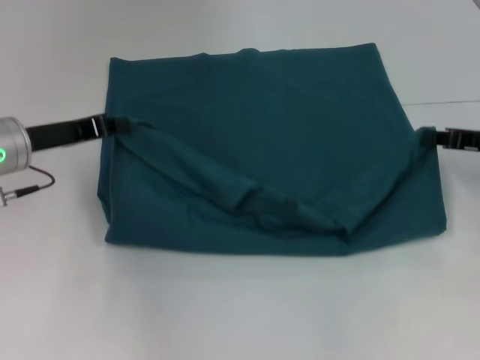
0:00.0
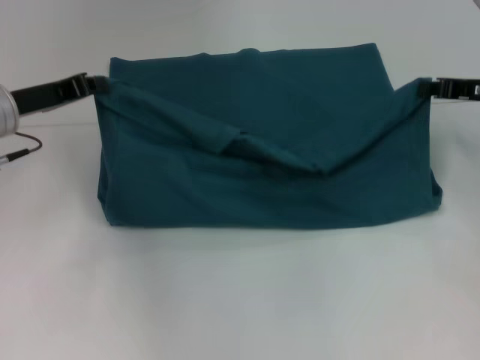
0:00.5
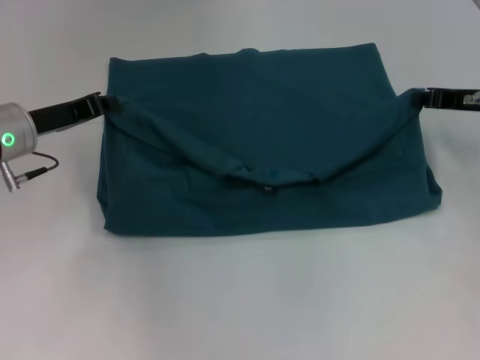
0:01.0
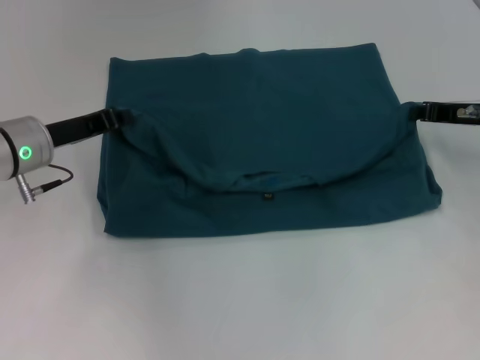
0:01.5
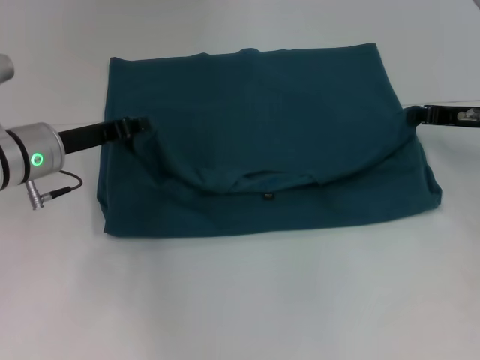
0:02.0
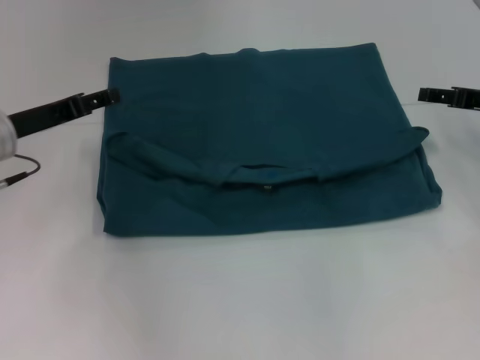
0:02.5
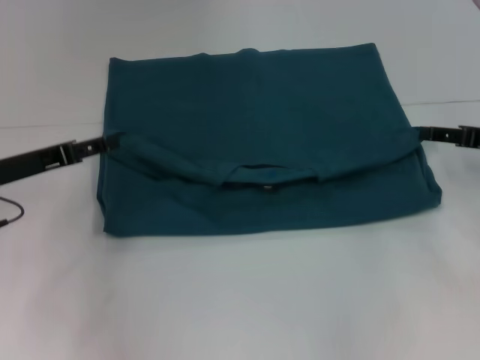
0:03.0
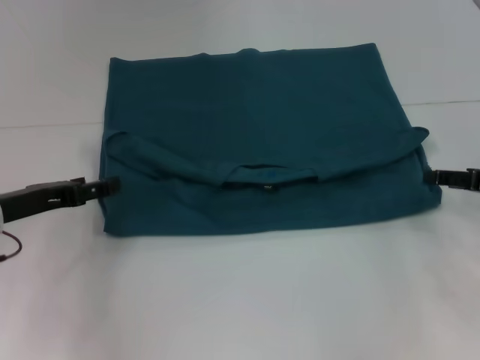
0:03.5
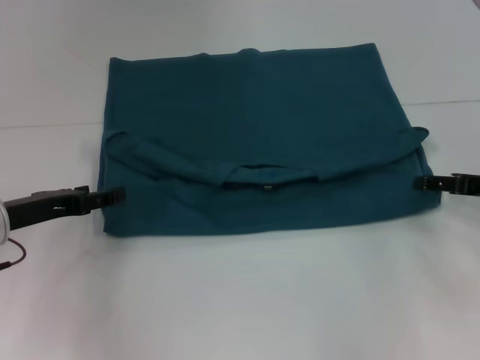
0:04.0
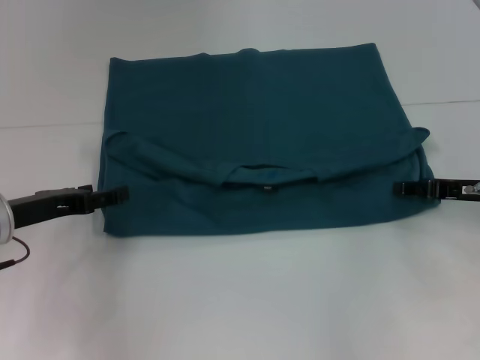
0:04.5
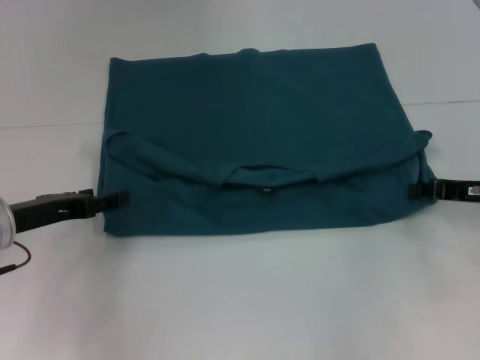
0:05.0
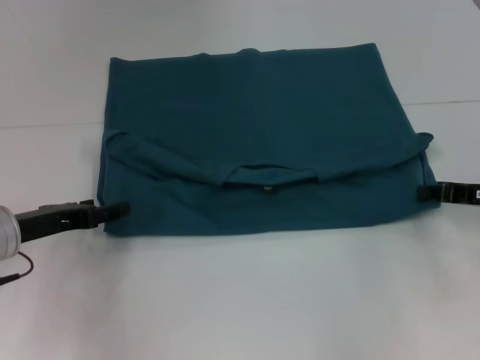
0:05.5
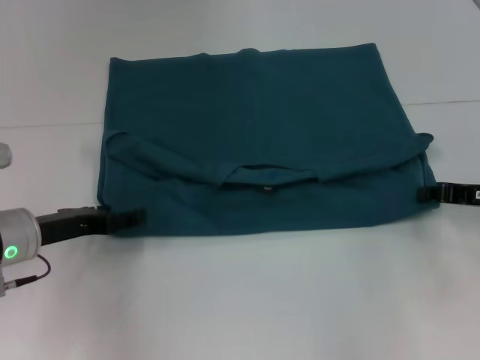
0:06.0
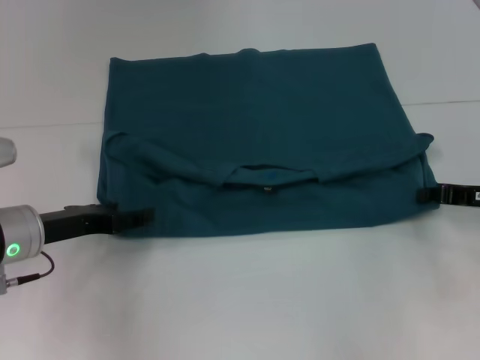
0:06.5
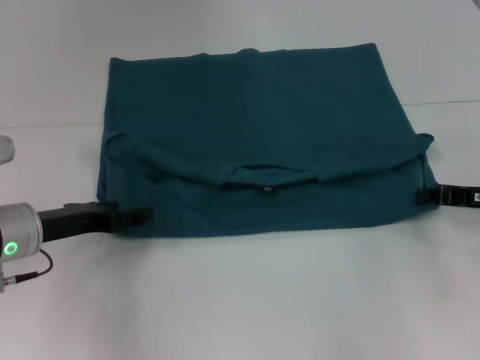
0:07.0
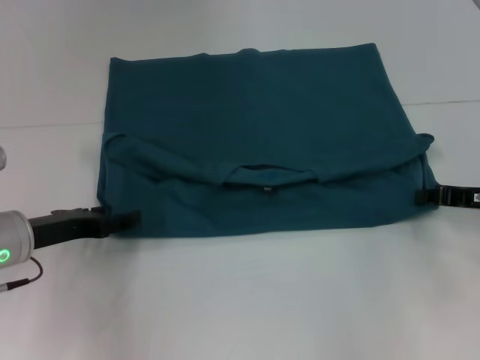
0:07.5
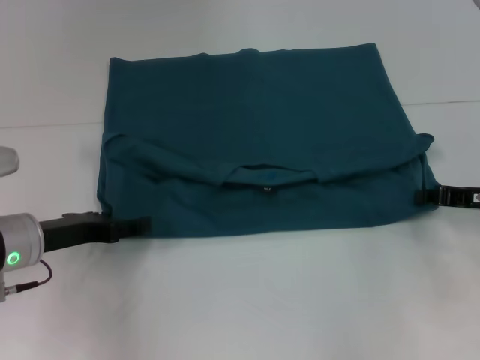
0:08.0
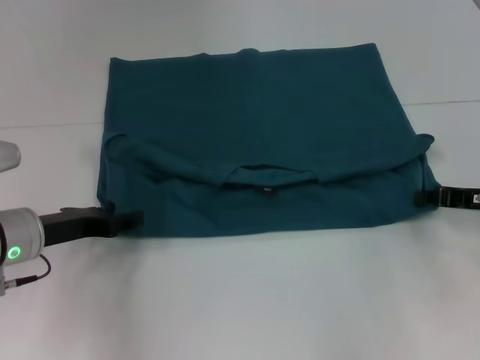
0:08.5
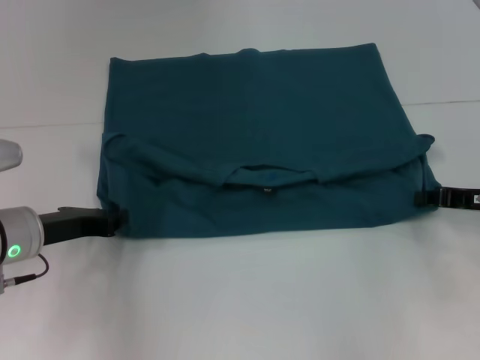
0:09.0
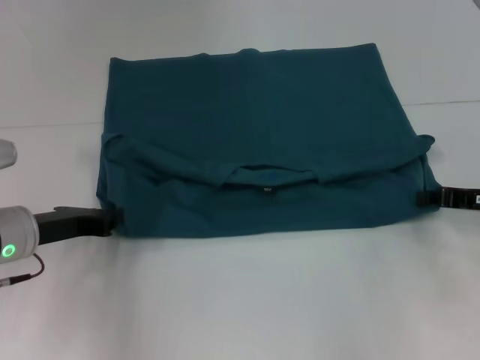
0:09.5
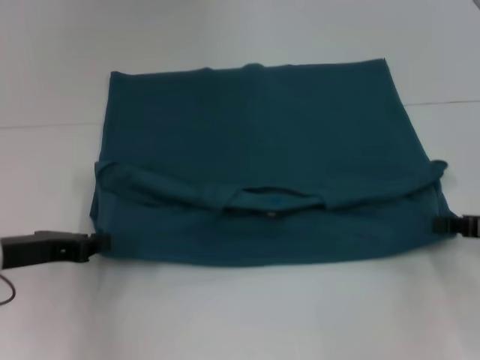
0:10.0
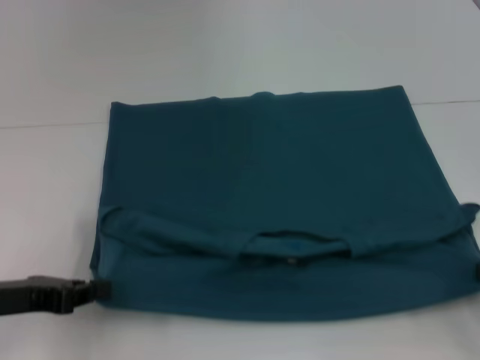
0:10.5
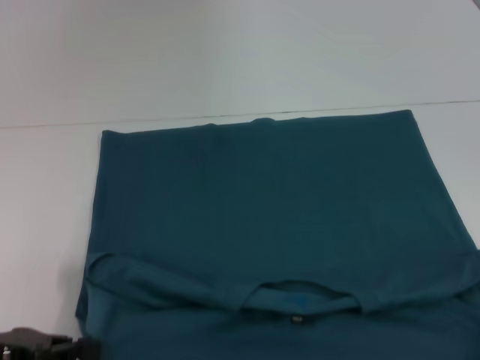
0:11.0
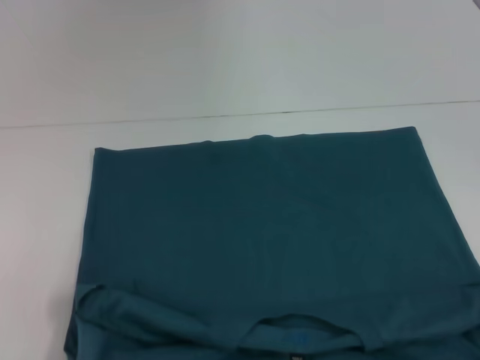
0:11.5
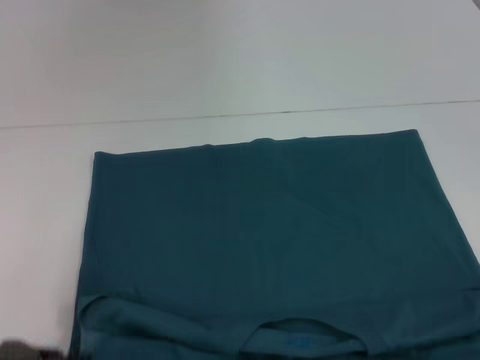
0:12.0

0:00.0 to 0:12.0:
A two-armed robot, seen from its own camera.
Step, 0:00.0 to 0:02.0: Fold the clothes to the left.
Step, 0:00.0 to 0:02.0: Fold the clothes to the right.
Step, 0:02.5 to 0:11.5: Pull the clothes with your left hand.
Step, 0:02.5 to 0:11.5: Pull the clothes with your right hand.
0:00.0 to 0:02.0: There are only small adjustments of the grippers.
0:02.0 to 0:04.0: The left gripper is displaced backward and to the left by approximately 10 cm, and opens its fingers, while the right gripper goes about 10 cm backward, and opens up.
0:04.0 to 0:06.0: The right gripper closes up.
0:06.0 to 0:08.0: Neither gripper changes place.
0:08.0 to 0:10.0: The left gripper closes its fingers.
0:10.0 to 0:12.0: The right gripper travels backward by about 15 cm. The left gripper travels backward by some 10 cm.

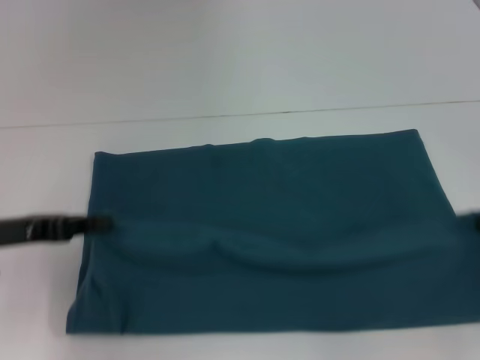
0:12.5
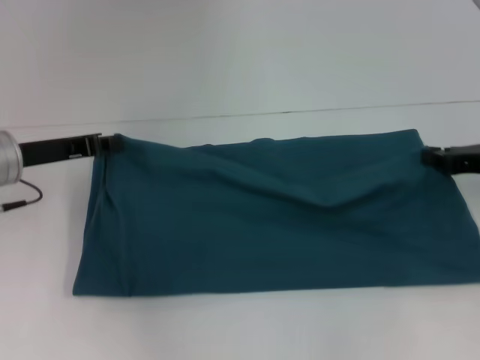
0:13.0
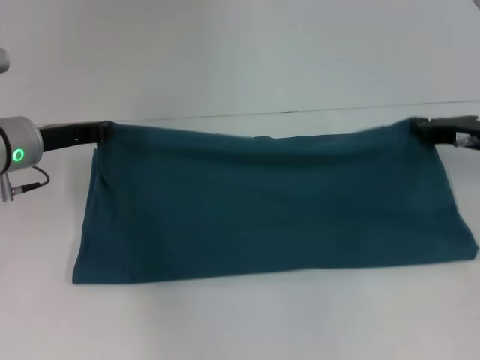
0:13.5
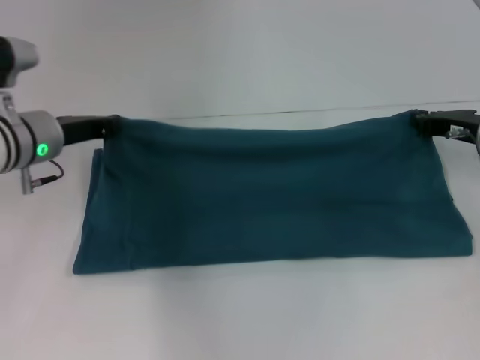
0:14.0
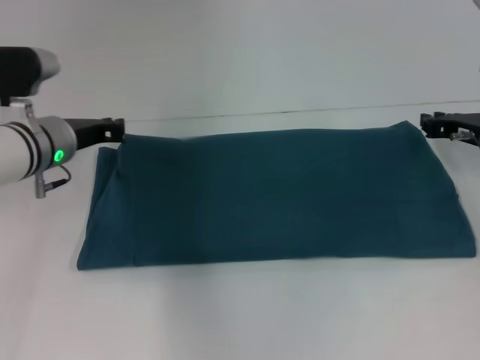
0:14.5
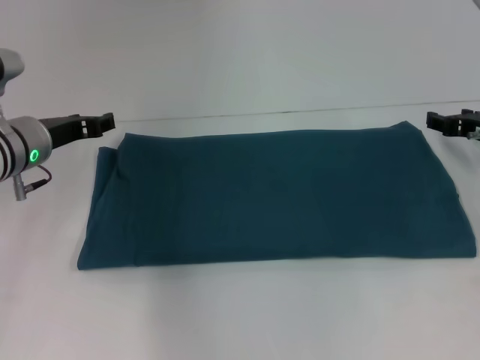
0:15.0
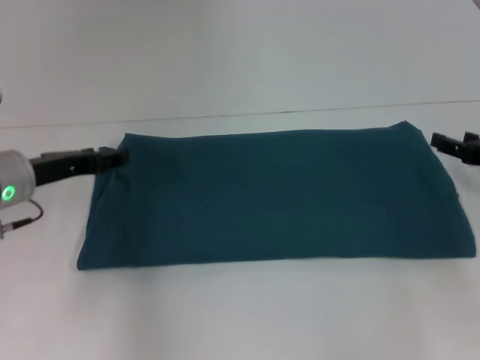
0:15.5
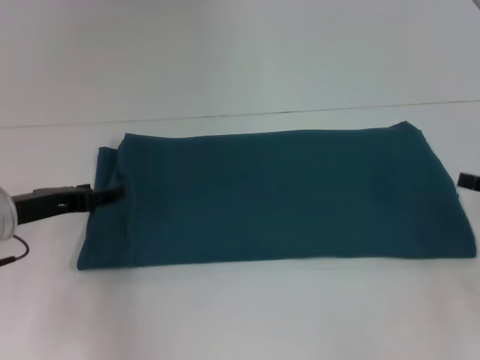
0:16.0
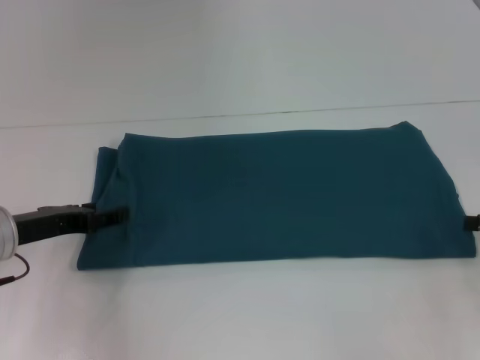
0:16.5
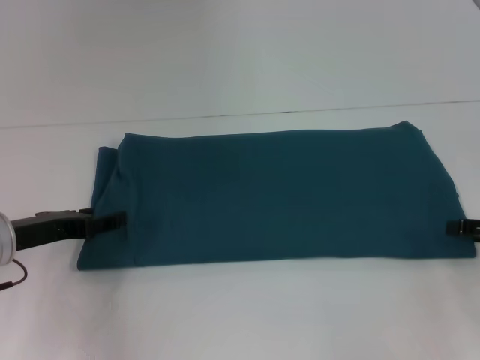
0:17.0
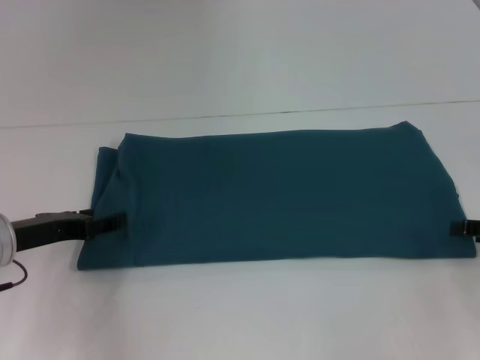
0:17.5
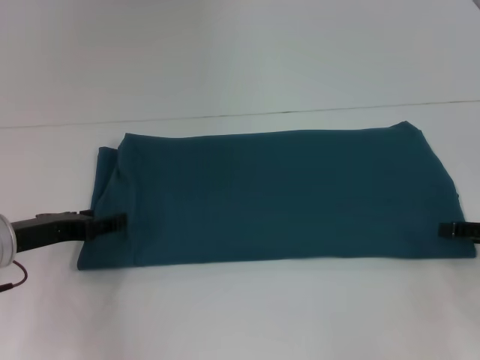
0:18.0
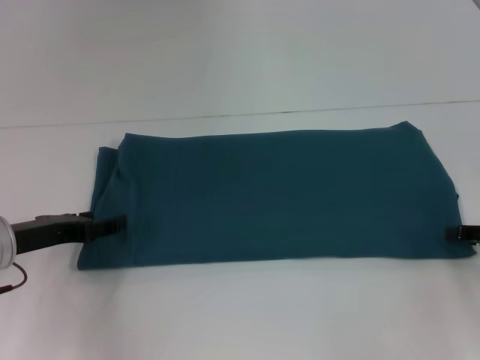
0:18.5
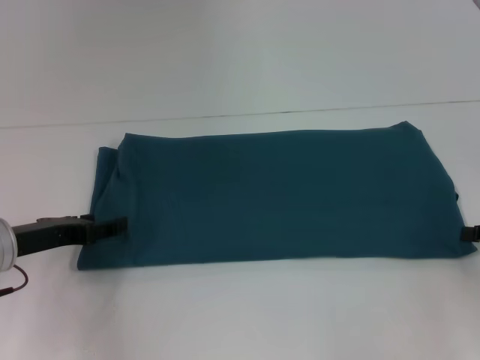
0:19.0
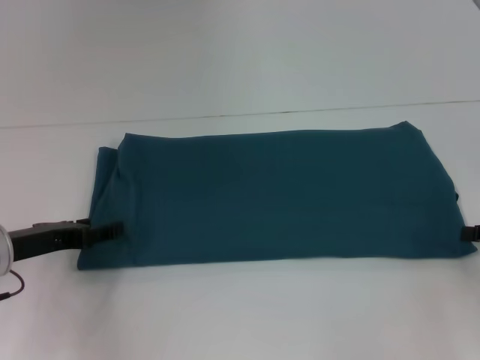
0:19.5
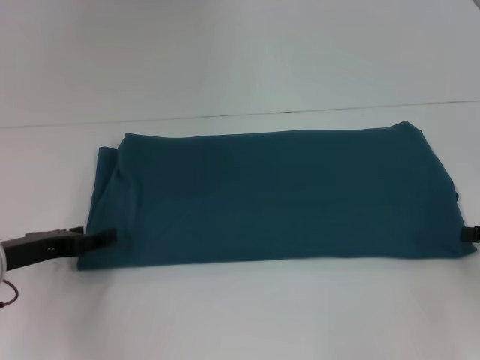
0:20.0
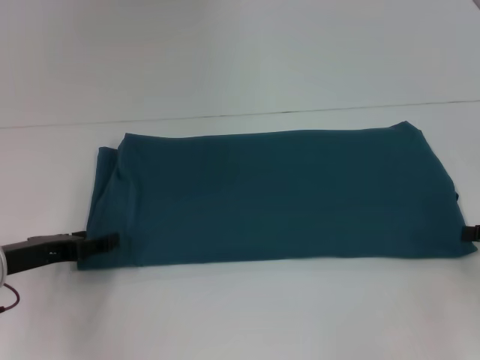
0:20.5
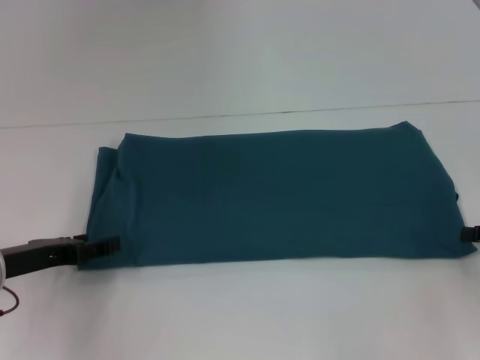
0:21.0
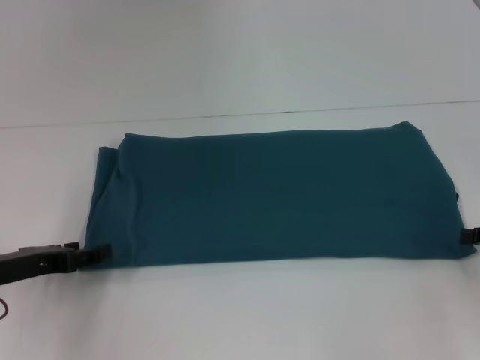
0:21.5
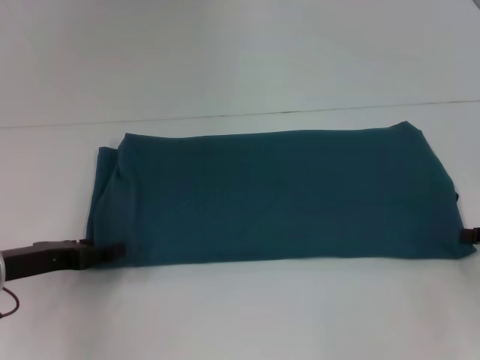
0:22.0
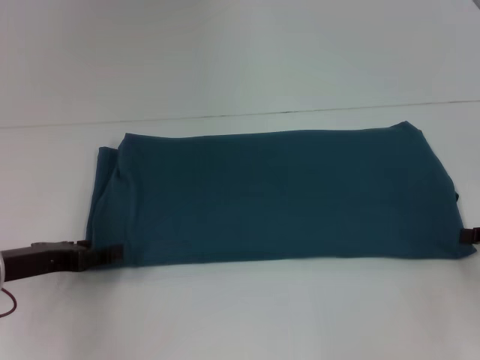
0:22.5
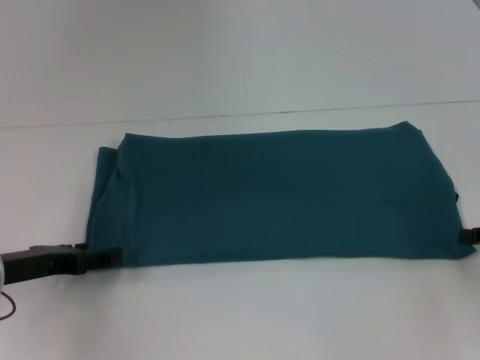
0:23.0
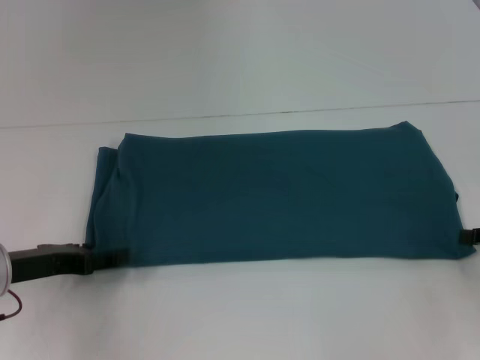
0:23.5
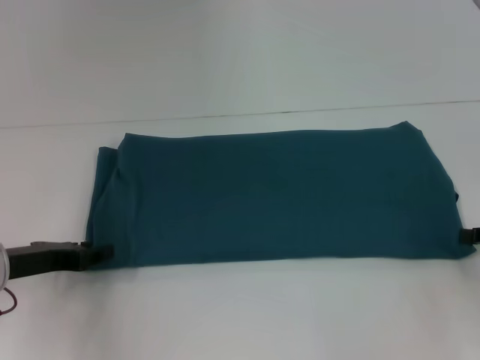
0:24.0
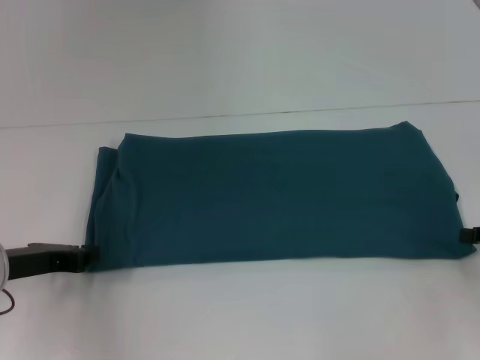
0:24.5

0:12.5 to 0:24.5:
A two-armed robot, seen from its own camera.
Step, 0:12.5 to 0:14.5: Fold the clothes to the right.
0:12.5 to 0:14.5: The left gripper shifts about 15 cm forward and to the right, while the right gripper travels forward and to the left by about 15 cm.
0:14.5 to 0:16.5: The left gripper is displaced backward and to the left by roughly 10 cm, and opens. Meanwhile the right gripper heads backward and to the right, covering roughly 15 cm, and opens up.
0:16.5 to 0:18.5: The grippers move only a little.
0:20.5 to 0:22.5: The grippers make only small movements.

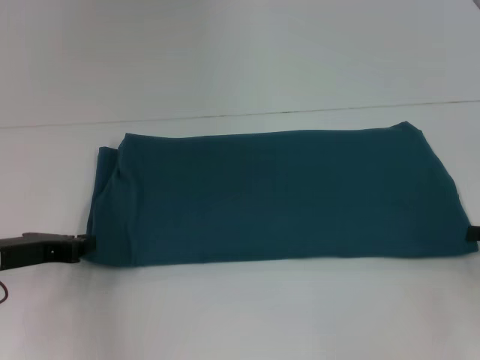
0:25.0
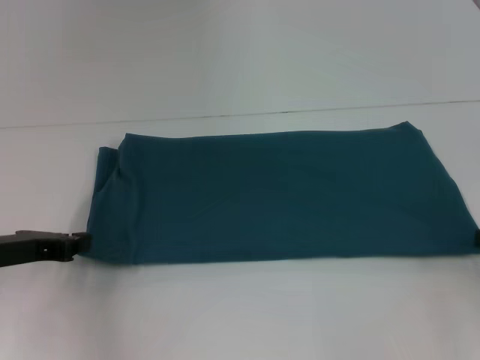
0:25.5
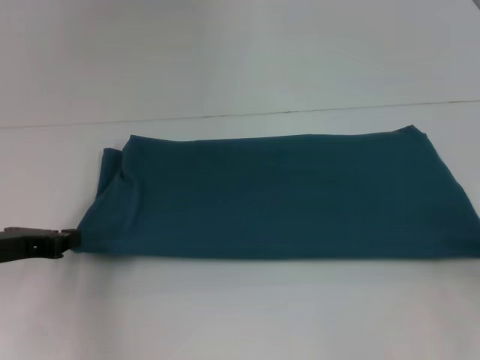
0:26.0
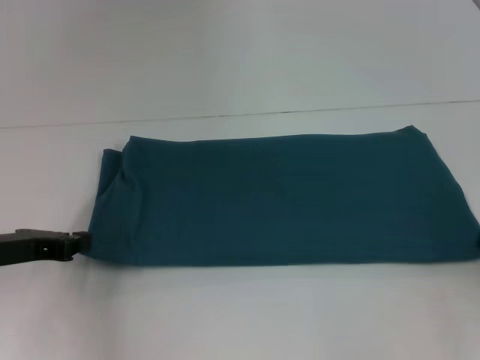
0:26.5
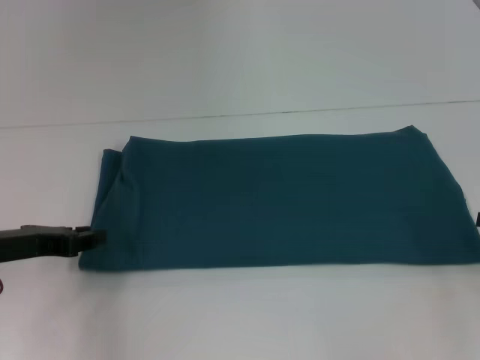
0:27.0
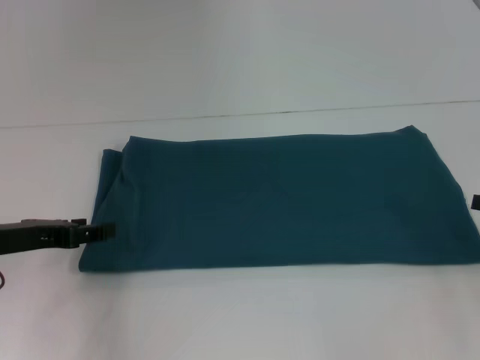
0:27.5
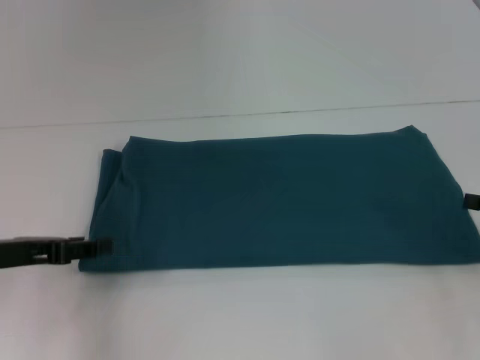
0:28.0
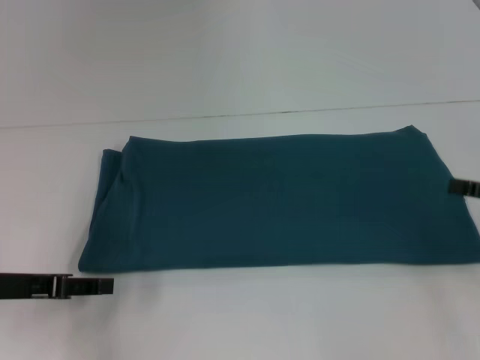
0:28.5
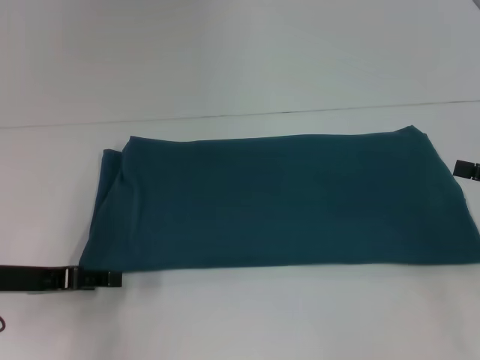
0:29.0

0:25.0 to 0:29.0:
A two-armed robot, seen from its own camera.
0:25.0 to 0:27.0: There are only small adjustments of the grippers.
0:27.0 to 0:29.0: The left gripper opens up.
